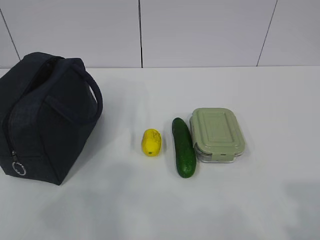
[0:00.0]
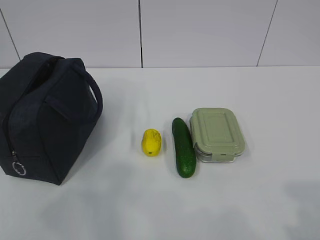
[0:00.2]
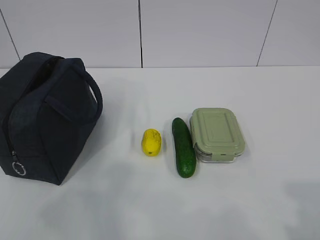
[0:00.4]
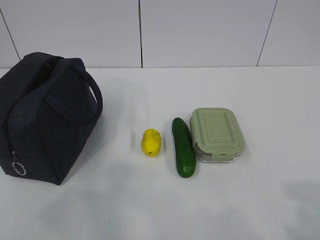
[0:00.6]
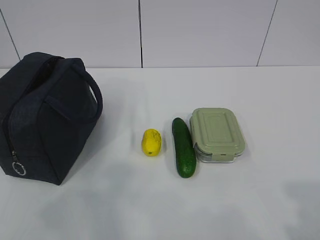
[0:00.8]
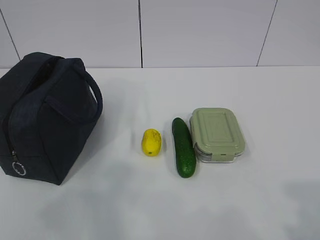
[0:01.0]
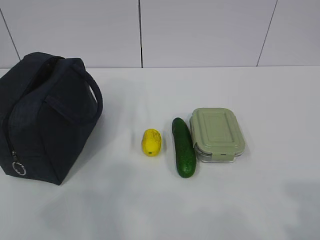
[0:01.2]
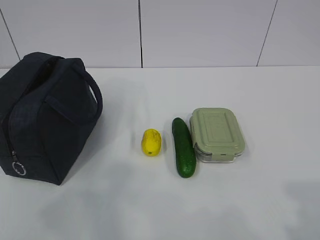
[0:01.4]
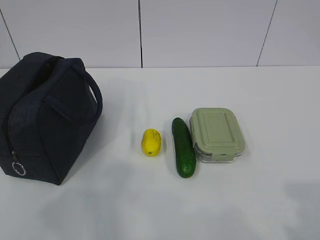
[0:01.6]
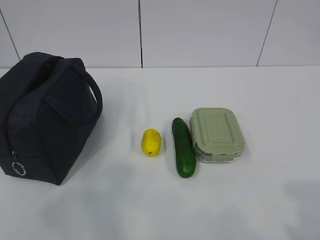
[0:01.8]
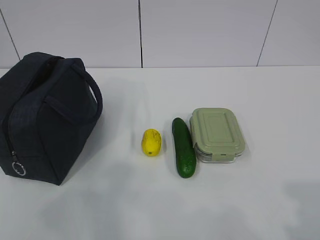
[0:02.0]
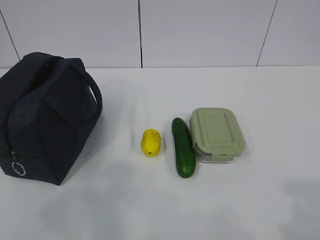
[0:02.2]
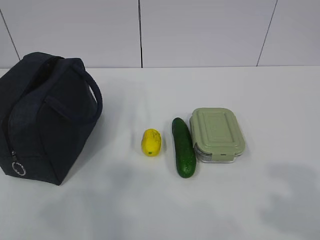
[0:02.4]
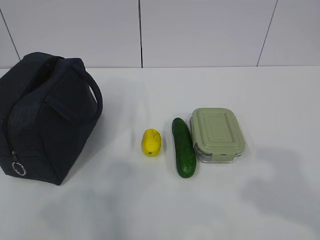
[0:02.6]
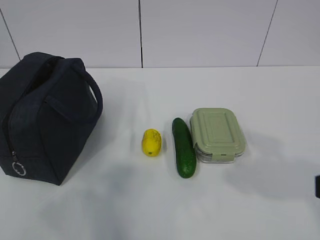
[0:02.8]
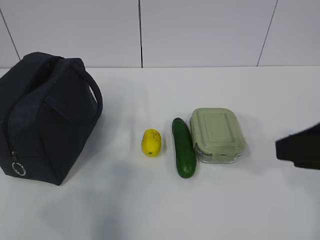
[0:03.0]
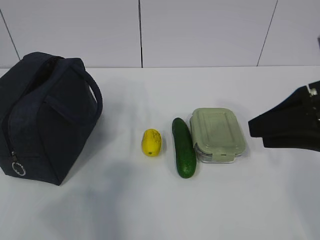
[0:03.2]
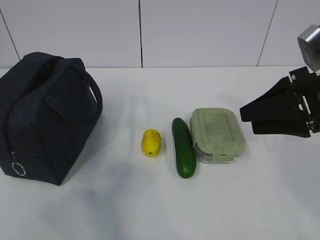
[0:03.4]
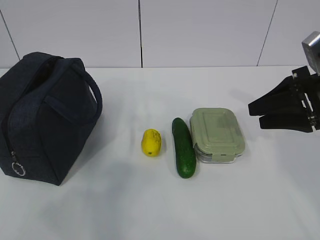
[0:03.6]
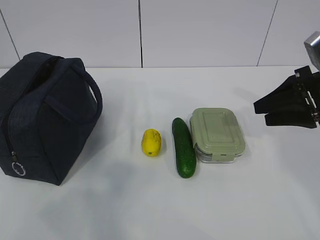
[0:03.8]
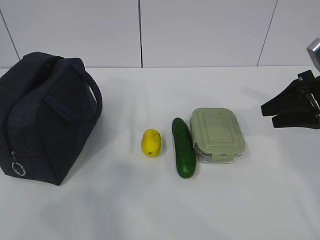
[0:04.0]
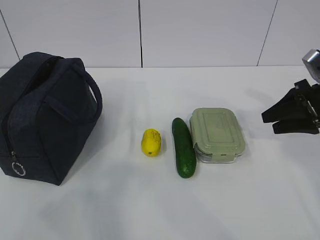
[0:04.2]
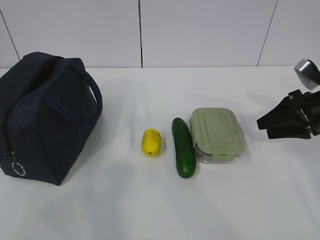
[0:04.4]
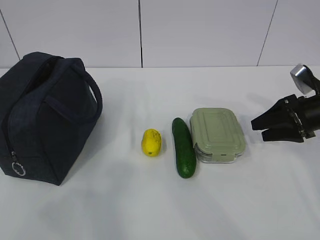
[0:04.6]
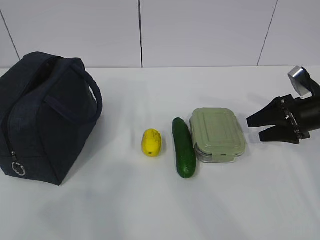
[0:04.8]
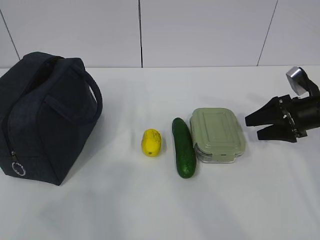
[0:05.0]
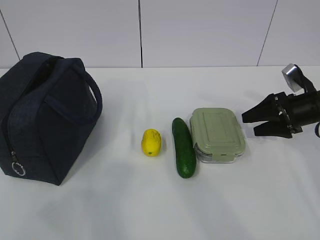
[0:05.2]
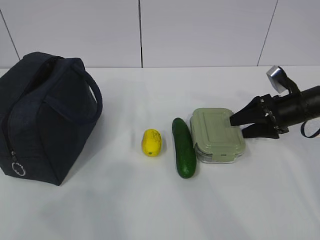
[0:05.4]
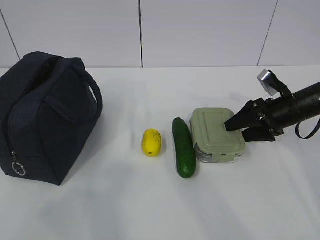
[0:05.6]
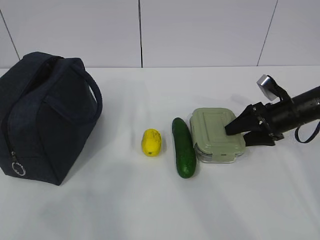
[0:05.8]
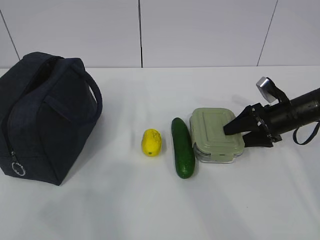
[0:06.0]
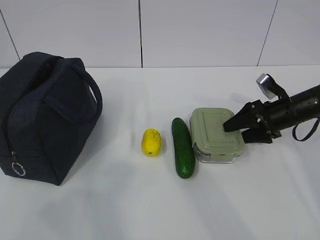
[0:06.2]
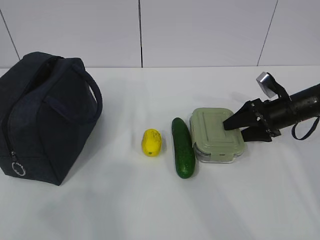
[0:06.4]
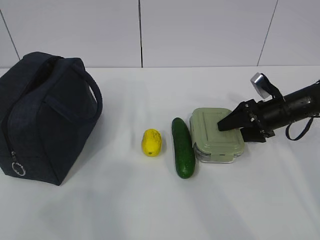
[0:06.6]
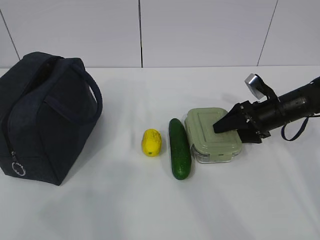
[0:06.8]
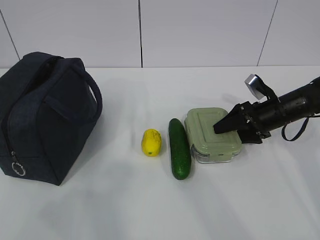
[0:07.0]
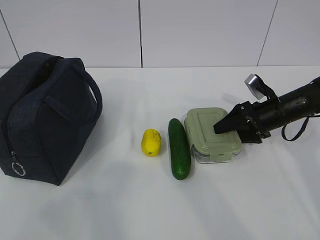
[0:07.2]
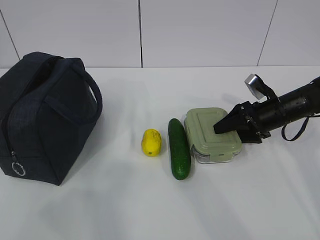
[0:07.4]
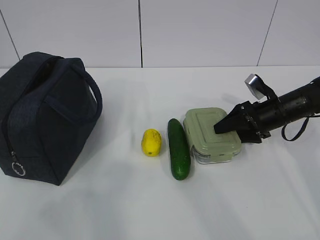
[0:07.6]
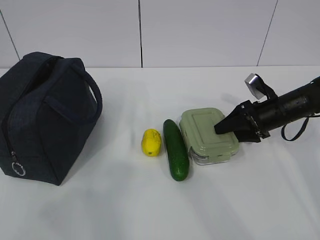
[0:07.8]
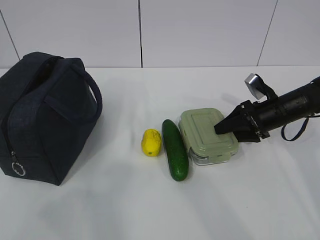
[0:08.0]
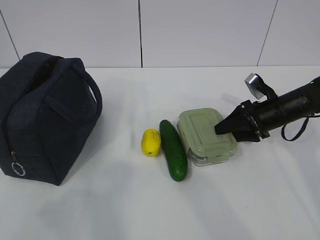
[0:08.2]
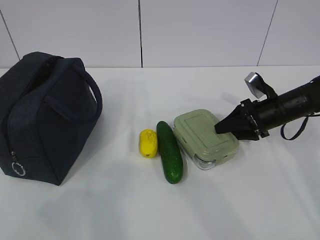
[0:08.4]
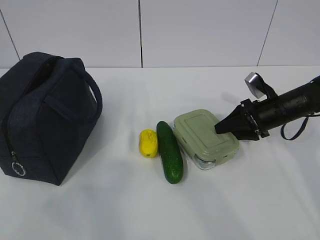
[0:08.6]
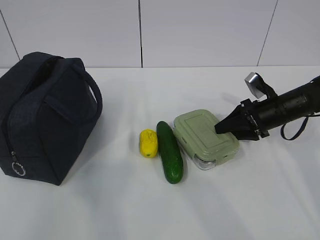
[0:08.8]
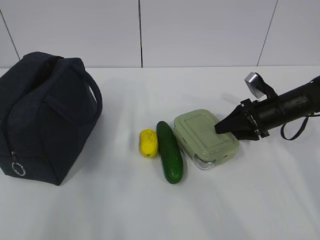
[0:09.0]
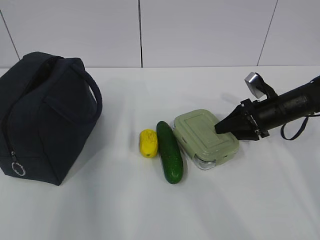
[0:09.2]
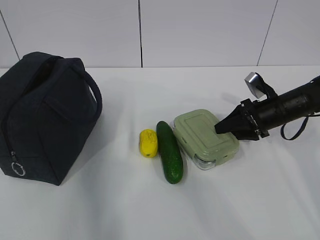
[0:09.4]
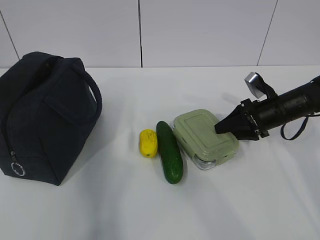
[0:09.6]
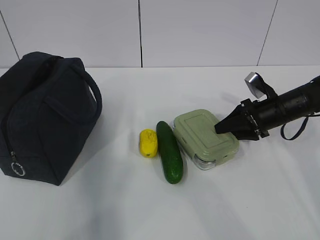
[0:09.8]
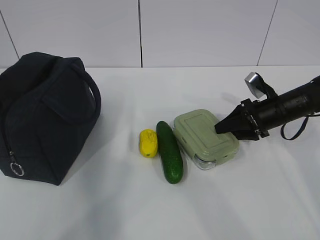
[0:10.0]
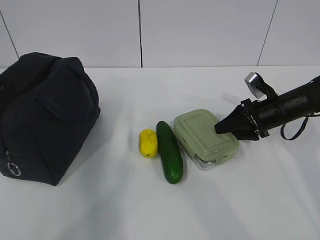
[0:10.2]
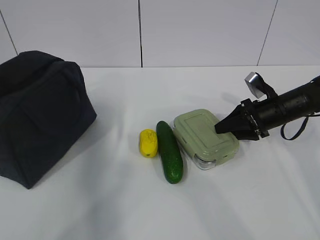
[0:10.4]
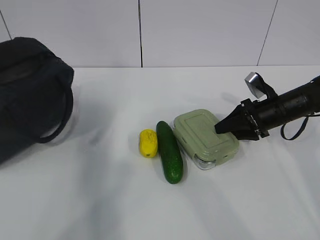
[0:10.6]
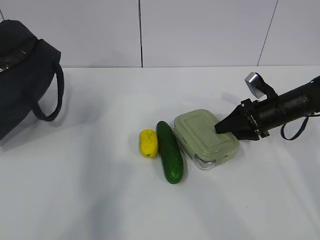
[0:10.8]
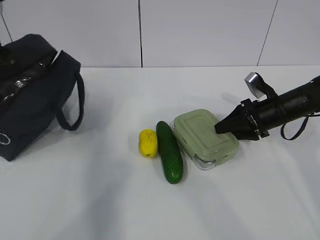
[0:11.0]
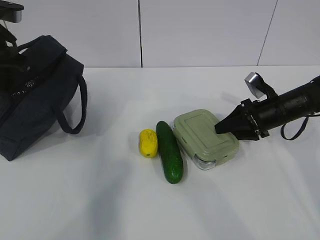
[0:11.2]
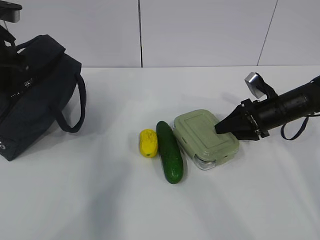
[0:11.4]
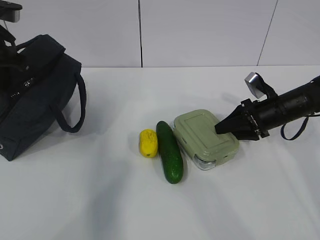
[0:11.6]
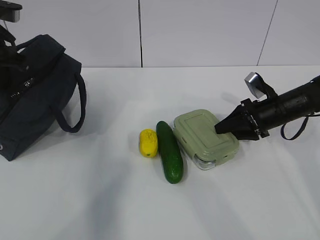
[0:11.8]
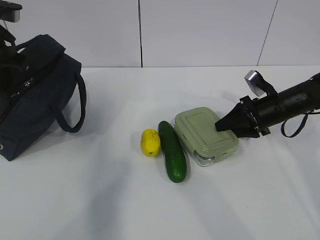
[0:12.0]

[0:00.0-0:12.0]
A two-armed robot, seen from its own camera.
Step, 0:00.0 to 0:10.6: Grab the lunch box with your right hand.
0:01.6 to 0:03.0: The right gripper heads forward, covering approximately 15 cm.
0:03.0 to 0:04.4: The right gripper travels forward, downward and to the right by some 25 cm.
0:04.4 to 0:06.0: The right gripper shifts roughly 5 cm downward.
0:06.0 to 0:07.6: The grippers move only a little.
0:07.6 to 0:09.0: The left gripper shifts some 10 cm forward.
0:09.0 to 0:10.4: The left gripper travels forward by roughly 25 cm, and closes up.
0:10.4 to 0:12.0: The left gripper shifts approximately 5 cm to the right.

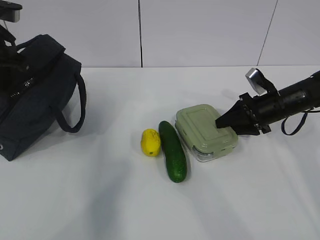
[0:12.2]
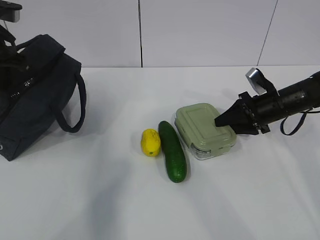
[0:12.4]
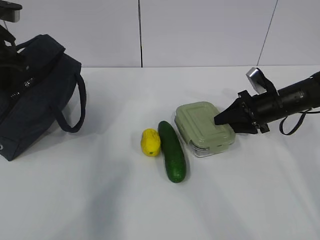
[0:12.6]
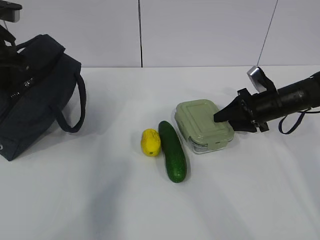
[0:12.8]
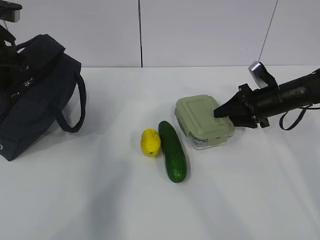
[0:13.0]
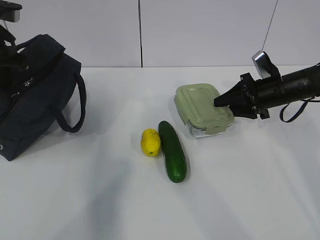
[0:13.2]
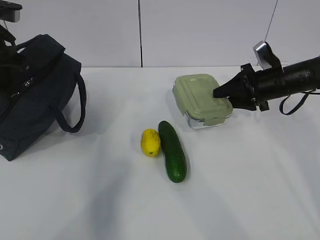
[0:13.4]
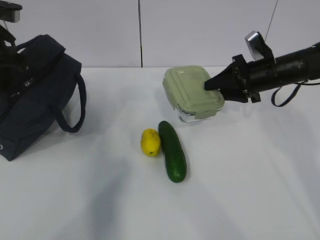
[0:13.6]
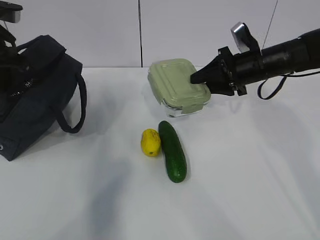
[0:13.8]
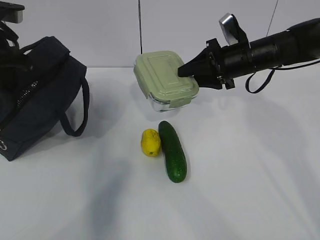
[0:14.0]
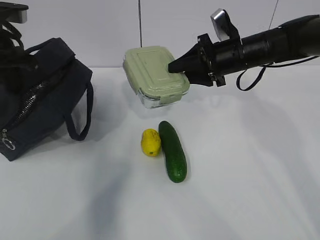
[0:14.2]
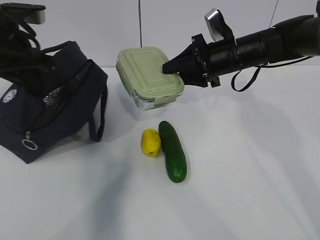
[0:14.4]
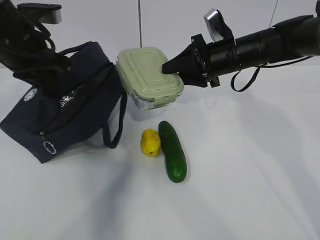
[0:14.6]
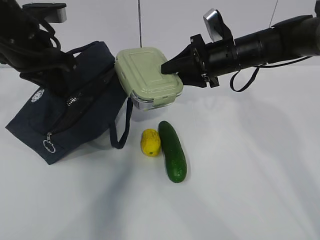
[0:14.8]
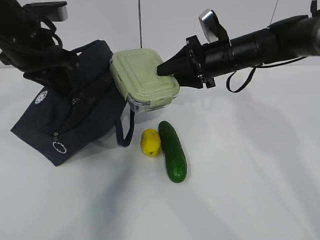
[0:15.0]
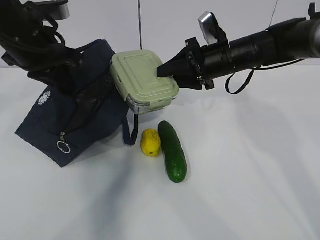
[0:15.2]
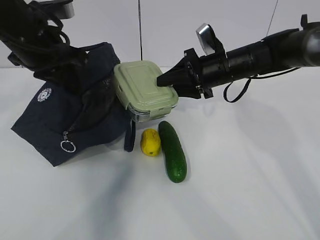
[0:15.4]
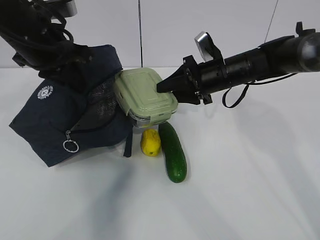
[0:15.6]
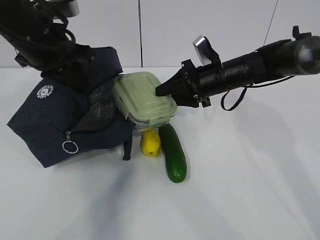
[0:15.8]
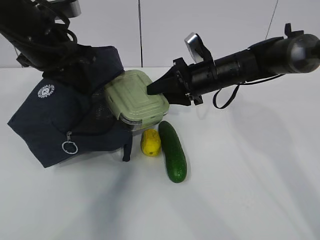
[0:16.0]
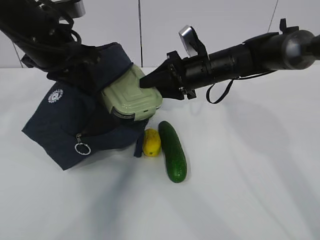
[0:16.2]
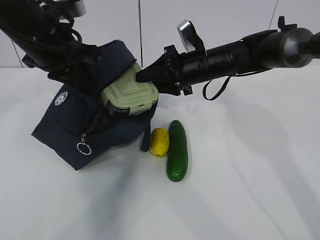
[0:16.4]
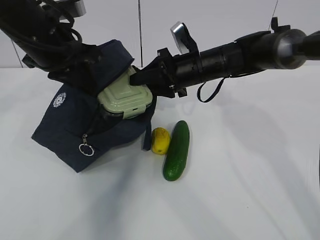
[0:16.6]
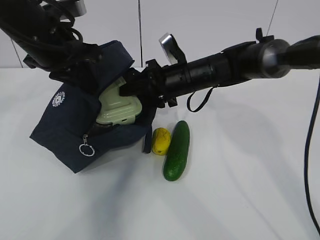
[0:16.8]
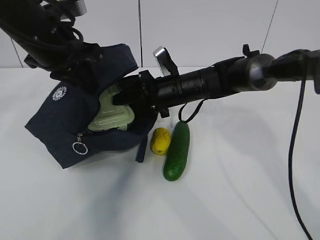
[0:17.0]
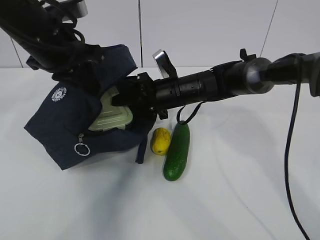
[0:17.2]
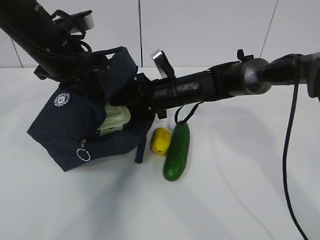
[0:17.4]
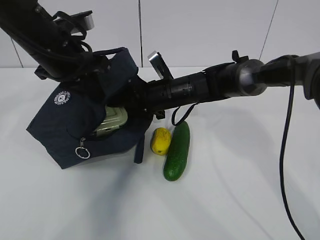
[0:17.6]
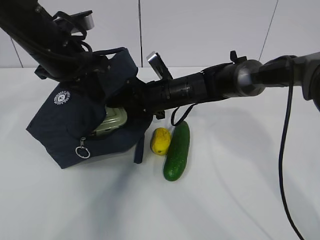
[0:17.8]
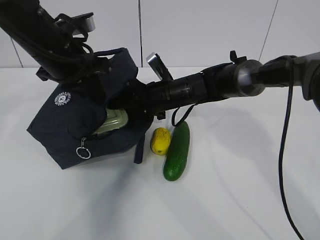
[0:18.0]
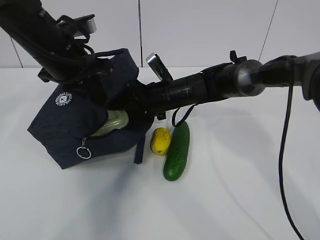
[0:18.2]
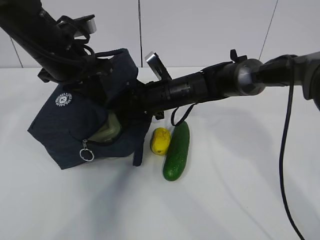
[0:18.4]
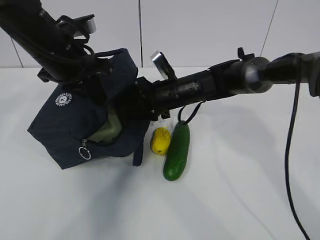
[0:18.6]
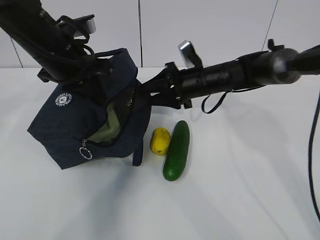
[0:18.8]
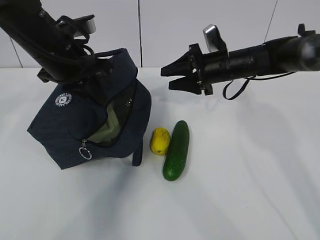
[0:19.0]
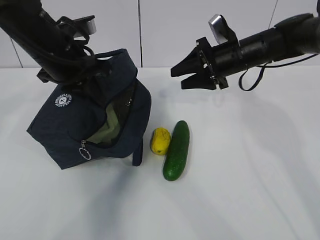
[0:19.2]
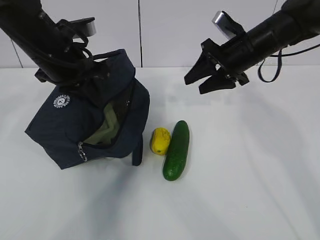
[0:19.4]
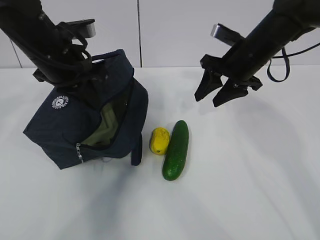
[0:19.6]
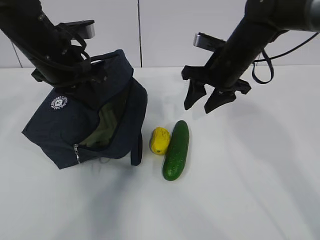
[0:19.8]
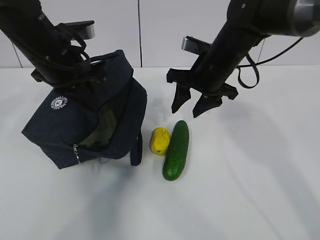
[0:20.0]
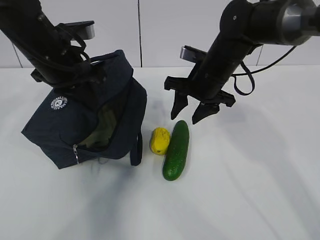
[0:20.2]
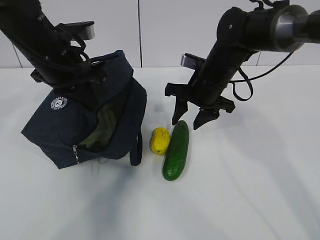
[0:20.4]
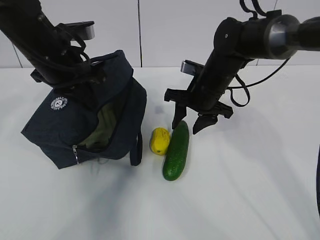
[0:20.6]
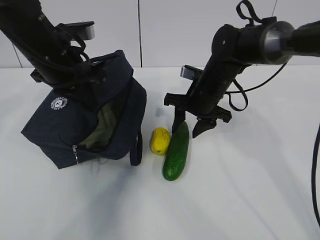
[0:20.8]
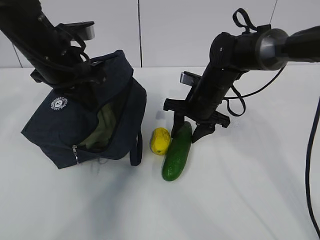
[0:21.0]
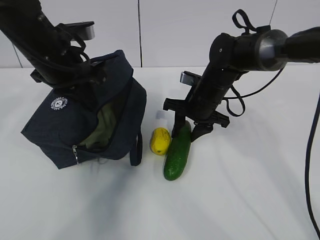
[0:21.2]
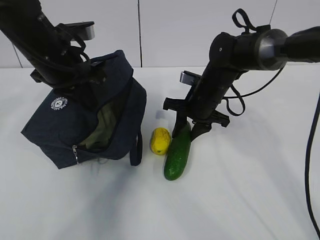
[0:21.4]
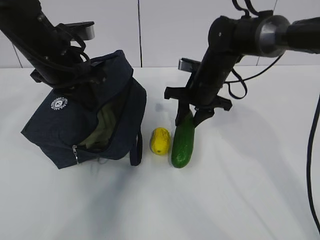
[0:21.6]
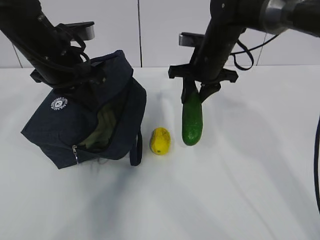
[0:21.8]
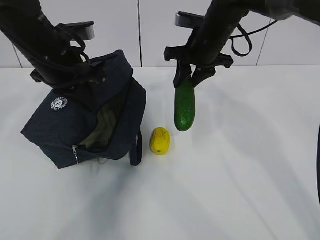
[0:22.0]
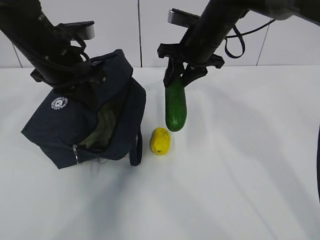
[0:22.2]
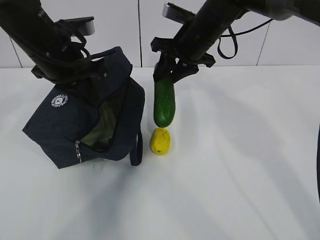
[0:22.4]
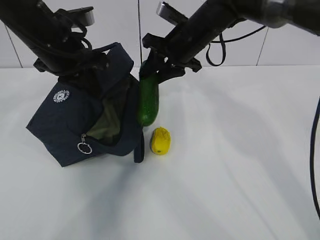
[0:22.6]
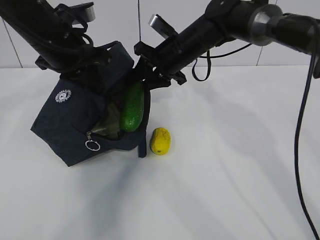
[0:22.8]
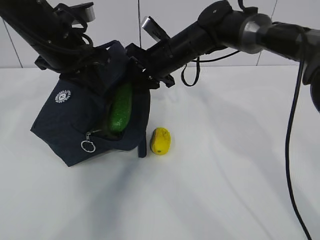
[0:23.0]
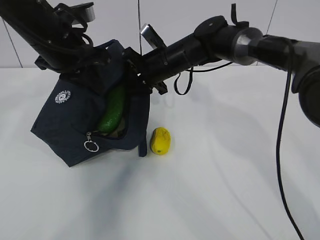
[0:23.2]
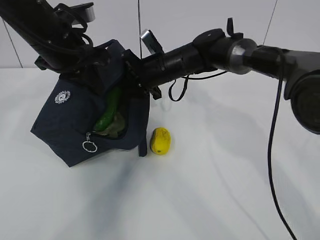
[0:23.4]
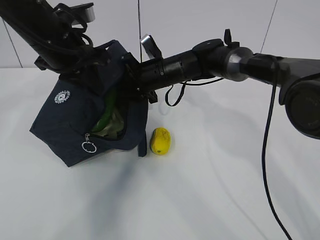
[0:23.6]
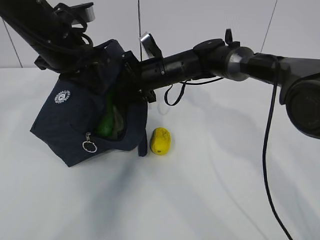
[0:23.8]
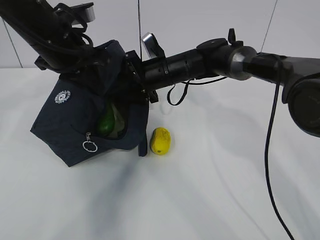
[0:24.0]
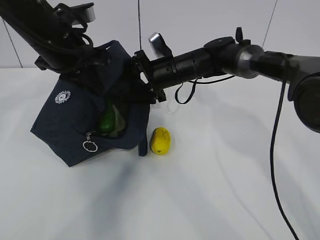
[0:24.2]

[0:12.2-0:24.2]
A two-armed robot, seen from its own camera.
Step, 0:12.8 to 0:15.4: Place it into the bag with your right hand.
Step, 0:15.6 to 0:17.8: Grab the cucumber with your right hand.
Step, 0:18.0 to 0:20.6: Place it into the bag with your right hand.
0:12.2 to 0:13.8: The right gripper travels upward and to the left by about 10 cm.
0:13.8 to 0:15.2: The left gripper moves to the right, approximately 10 cm; the right gripper travels to the left by approximately 5 cm.
0:15.2 to 0:16.6: The right gripper heads to the left, covering about 5 cm.
0:16.6 to 0:18.2: The right gripper goes roughly 5 cm downward.
0:18.2 to 0:19.8: The right gripper is displaced to the right and upward by some 15 cm.
0:19.8 to 0:21.2: The right gripper goes approximately 10 cm downward.
0:21.2 to 0:22.6: The right gripper shifts roughly 10 cm upward.
0:22.6 to 0:24.2: The right gripper is displaced downward by roughly 10 cm, and opens.
